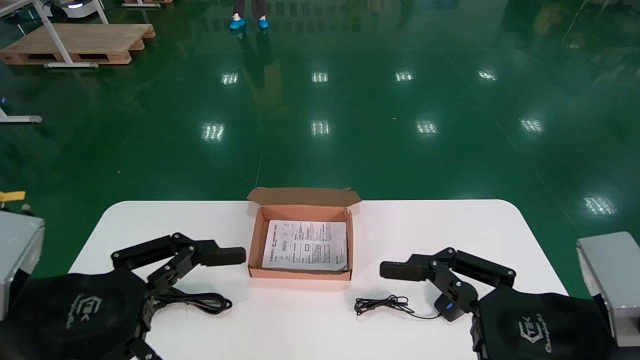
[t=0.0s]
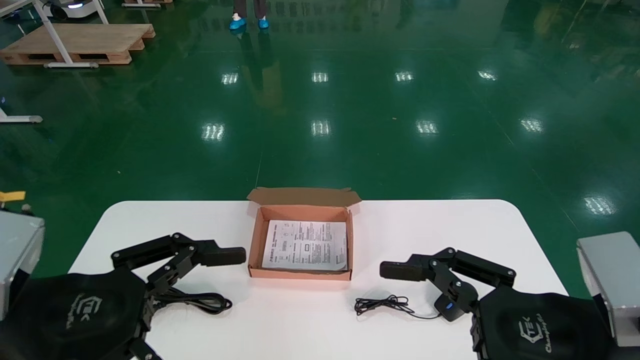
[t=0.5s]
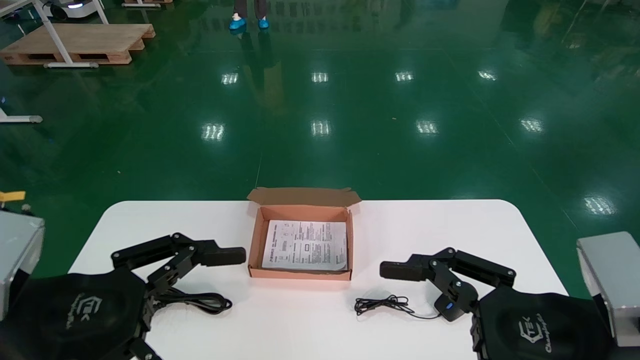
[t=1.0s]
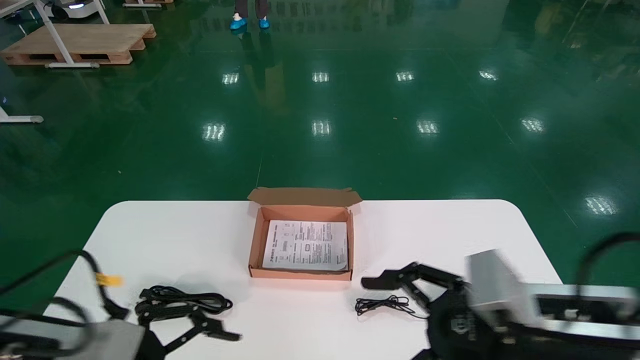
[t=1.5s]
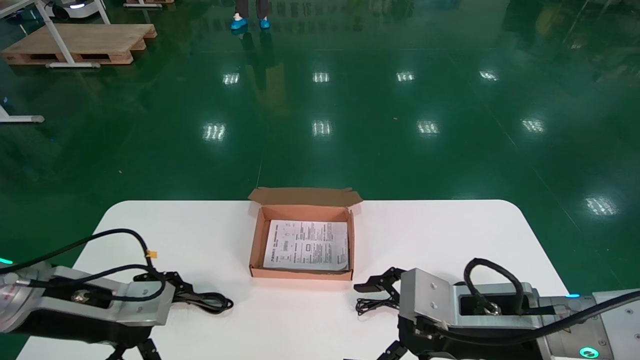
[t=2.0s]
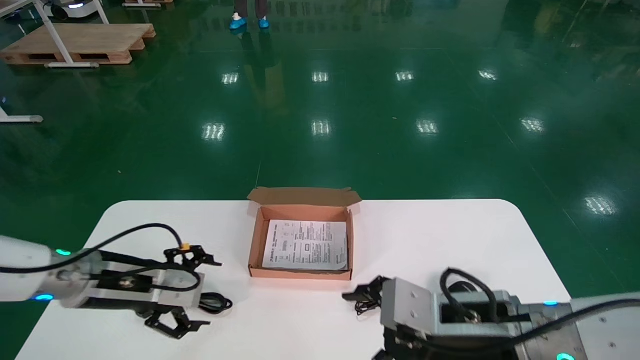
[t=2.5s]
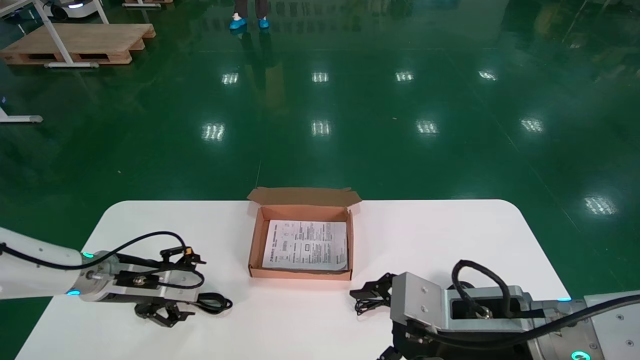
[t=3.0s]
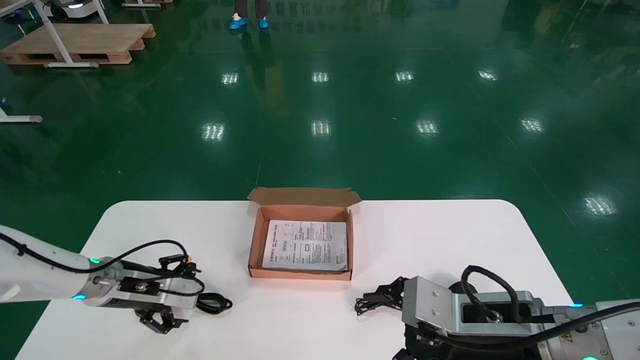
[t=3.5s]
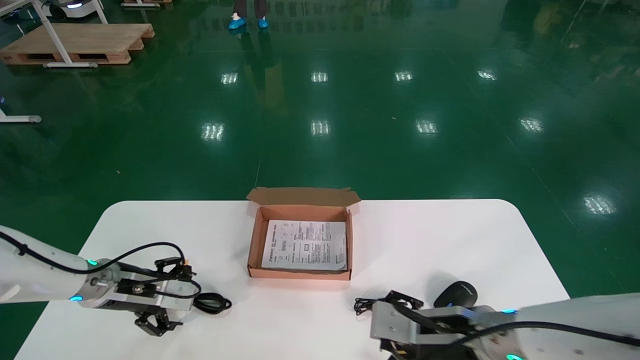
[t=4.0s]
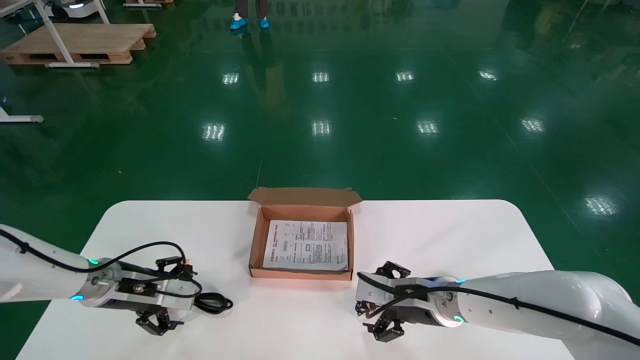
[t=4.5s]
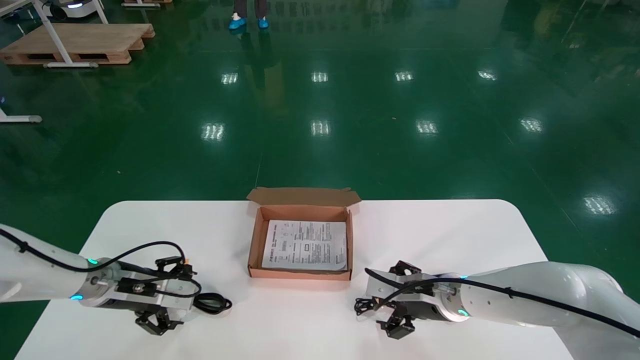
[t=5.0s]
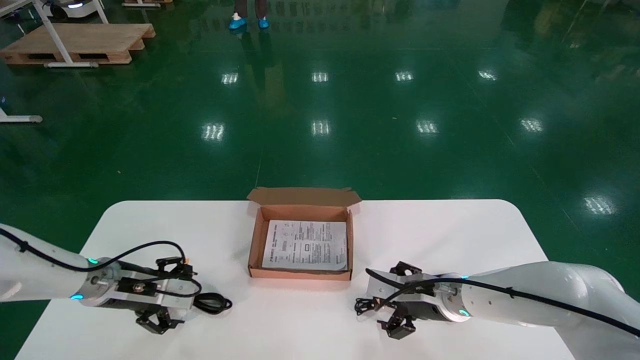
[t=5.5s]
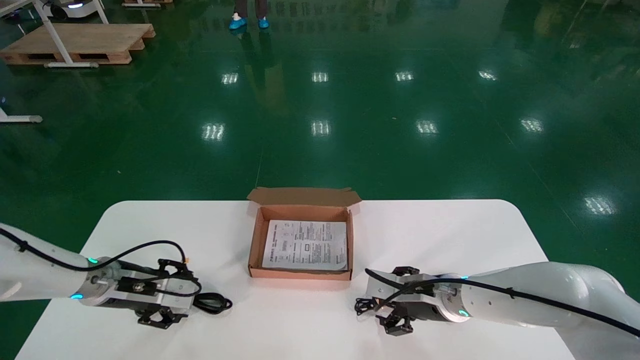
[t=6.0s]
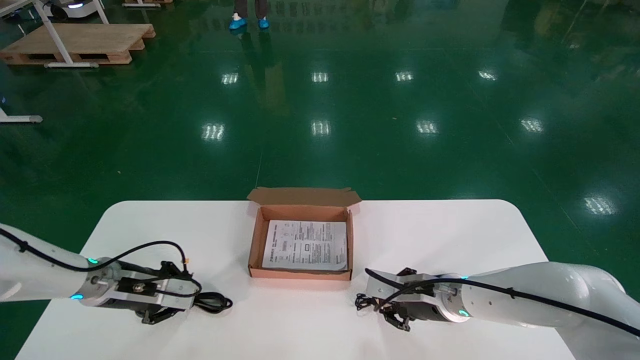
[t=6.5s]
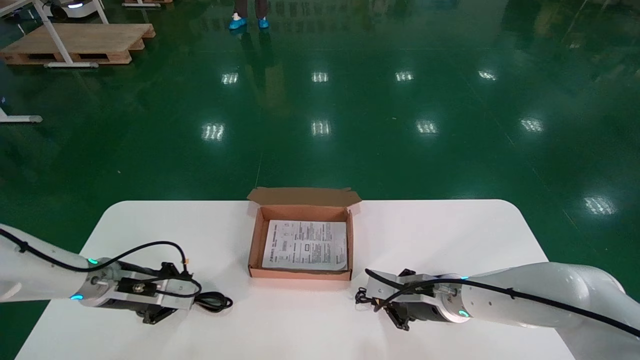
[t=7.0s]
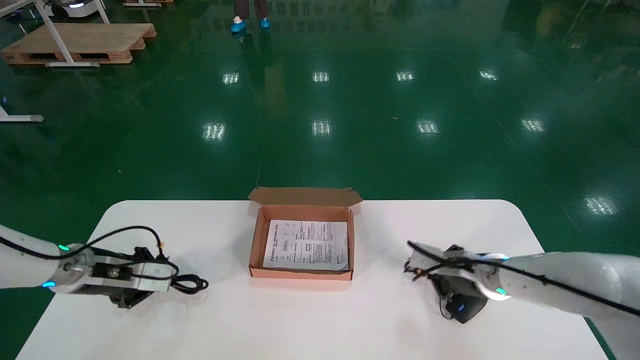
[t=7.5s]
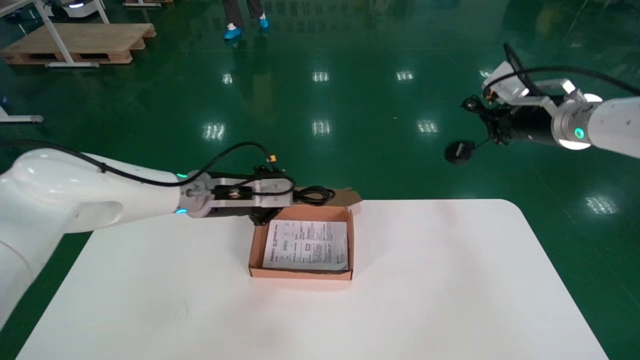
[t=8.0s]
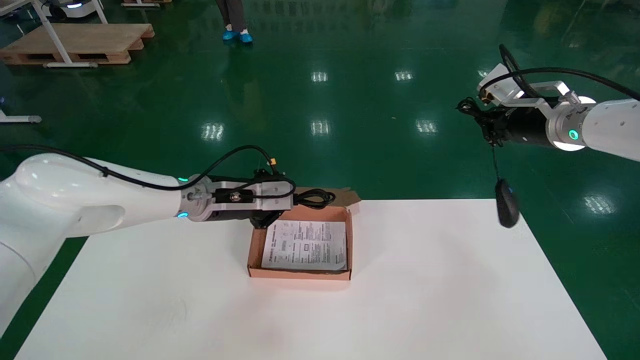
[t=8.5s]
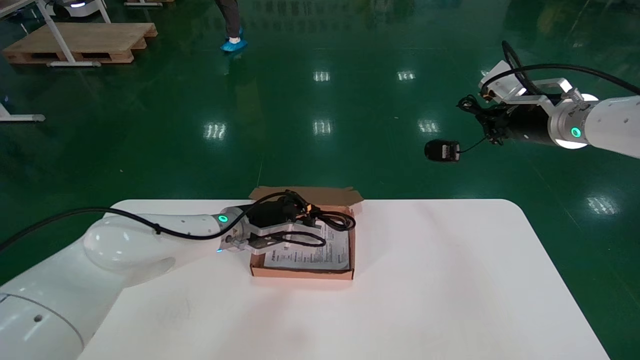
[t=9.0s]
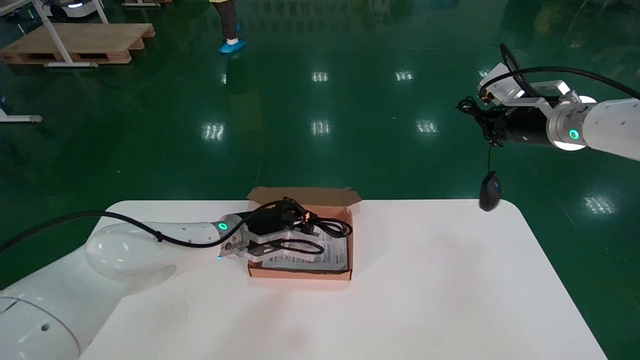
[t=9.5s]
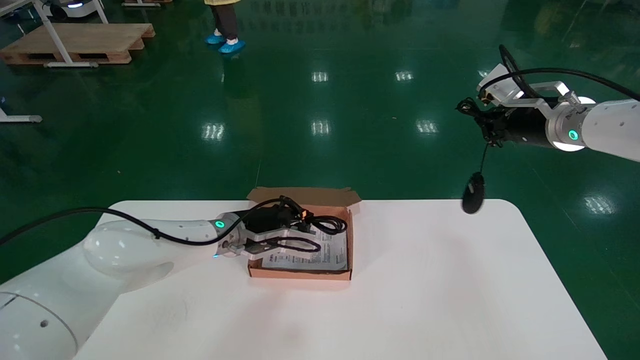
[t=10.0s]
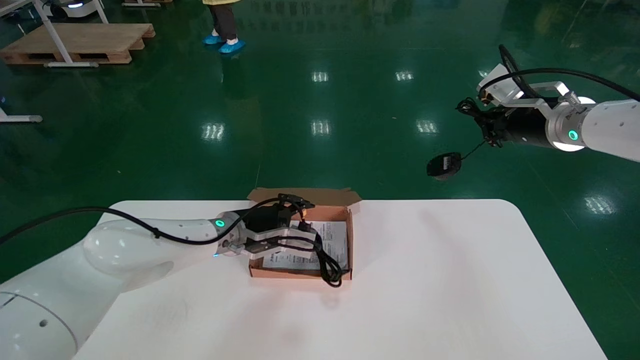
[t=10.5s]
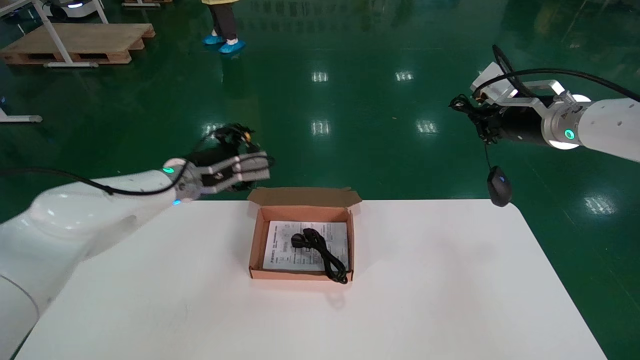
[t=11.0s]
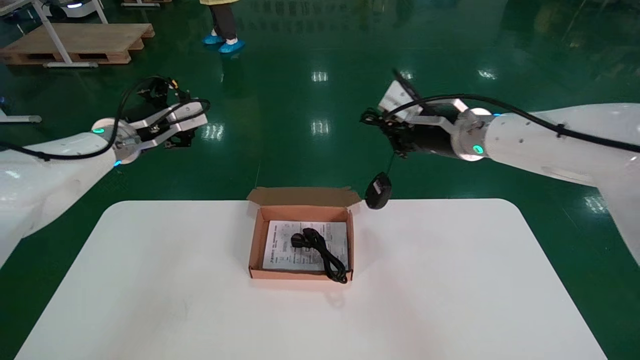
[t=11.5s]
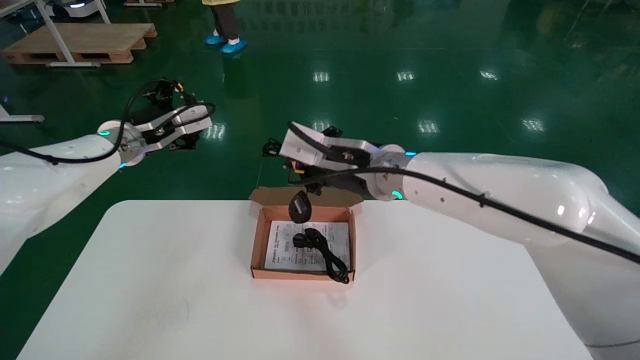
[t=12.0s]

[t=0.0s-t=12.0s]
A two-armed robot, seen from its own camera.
Step, t=1.5s to t=6.5s: Simultaneously pick up the mouse and power cord from the accessory packaging area.
t=0.0s to t=2.0s: The grippers both shift forward by some 10 cm.
t=2.0s to t=4.0s: The right gripper travels forward and downward by some 10 cm. The left gripper heads forward and downward, covering roughly 15 cm.
t=4.0s to t=6.0s: The right gripper shifts some 10 cm forward.
t=6.0s to t=8.0s: The right gripper travels upward and to the right by roughly 30 cm, and closes up. The left gripper goes some 20 cm to the right and upward, and closes its fingers.
t=8.0s to t=10.0s: The left gripper goes some 10 cm downward and to the right.
t=10.0s to t=12.0s: The left gripper goes roughly 20 cm to the left and upward, and opens up, while the right gripper shifts about 25 cm to the left.

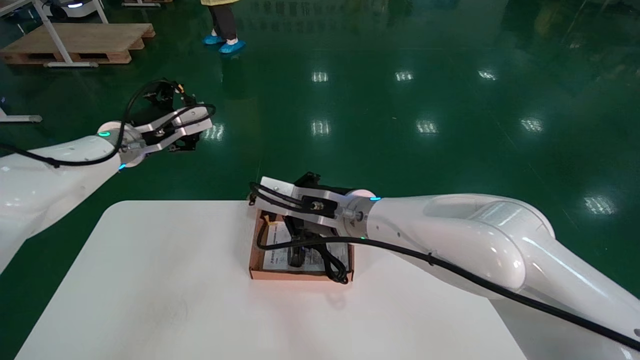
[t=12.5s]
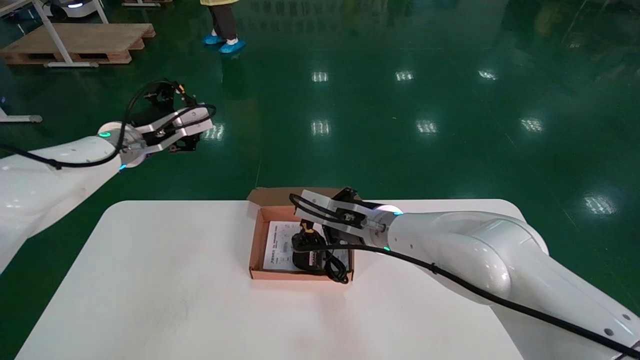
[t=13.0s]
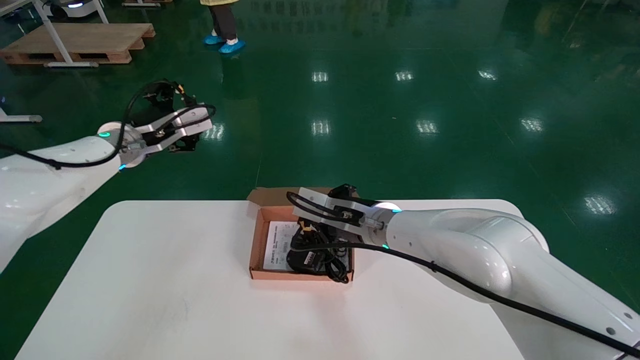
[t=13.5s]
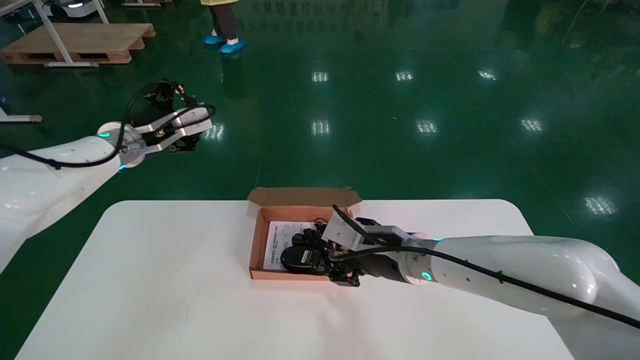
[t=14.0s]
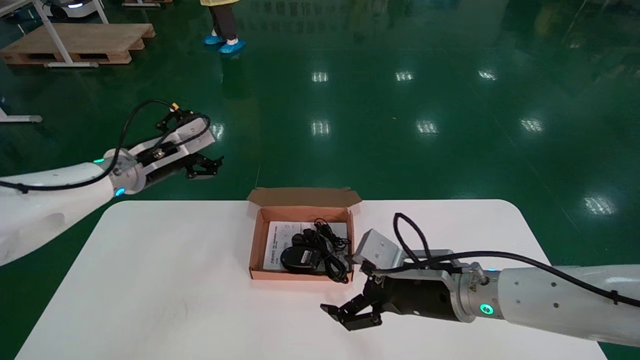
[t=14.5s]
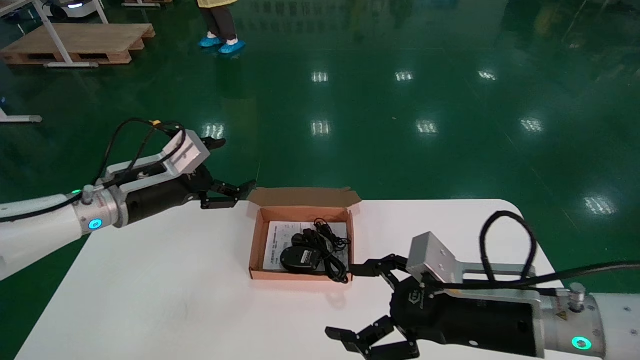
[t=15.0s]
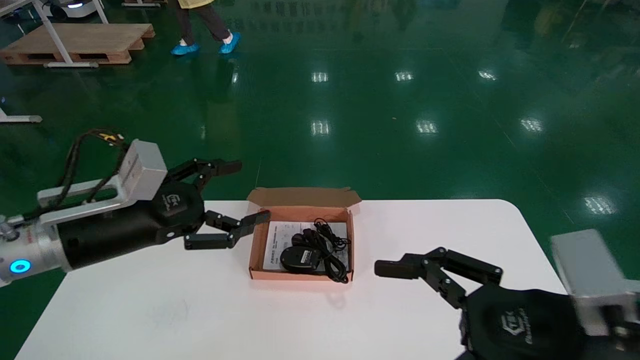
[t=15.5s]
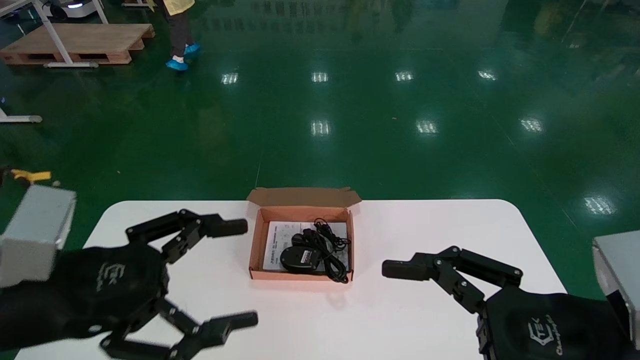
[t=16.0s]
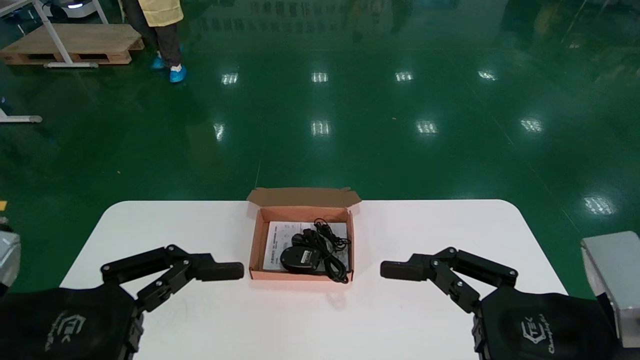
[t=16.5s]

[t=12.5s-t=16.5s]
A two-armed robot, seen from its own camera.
t=12.5s to t=14.5s: The right gripper heads to the right and downward, covering some 15 cm, and opens.
t=14.5s to t=16.5s: The right gripper goes approximately 20 cm backward and to the right; the left gripper moves backward, approximately 30 cm.
